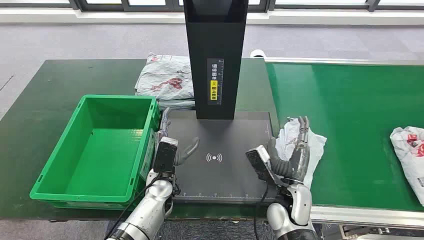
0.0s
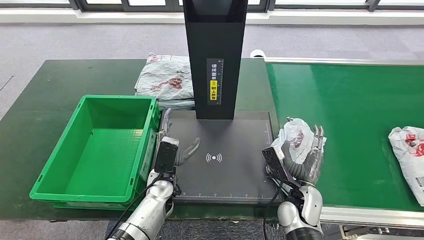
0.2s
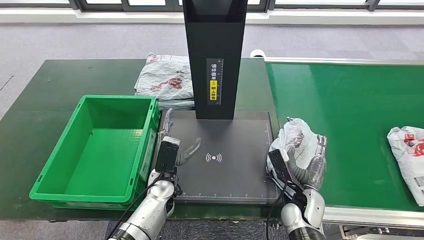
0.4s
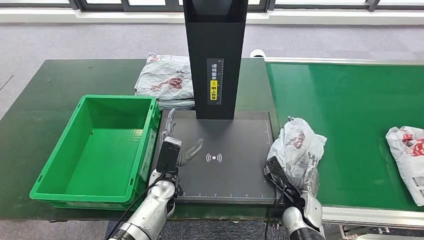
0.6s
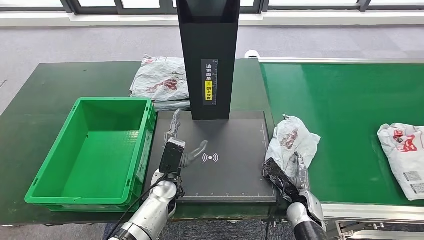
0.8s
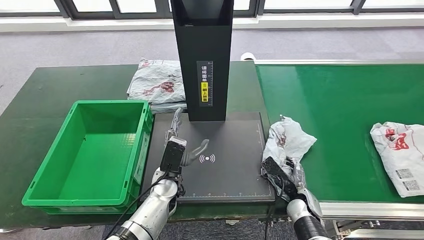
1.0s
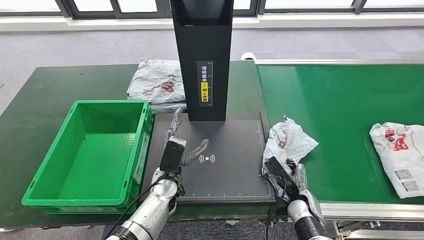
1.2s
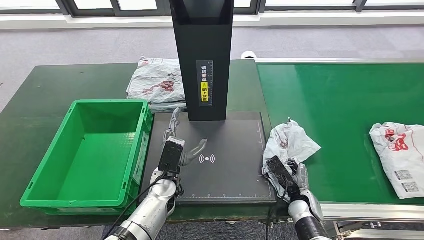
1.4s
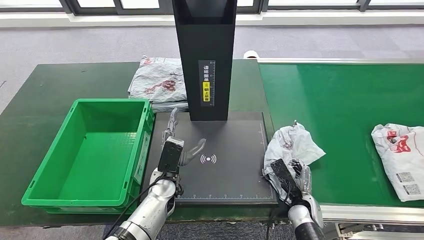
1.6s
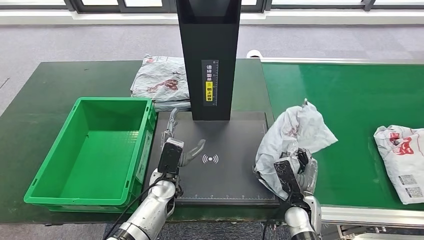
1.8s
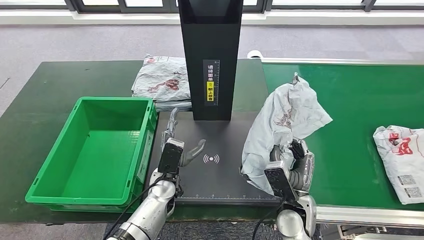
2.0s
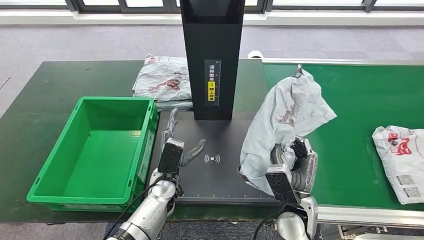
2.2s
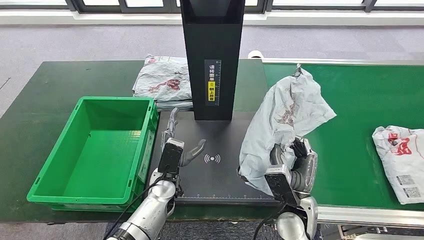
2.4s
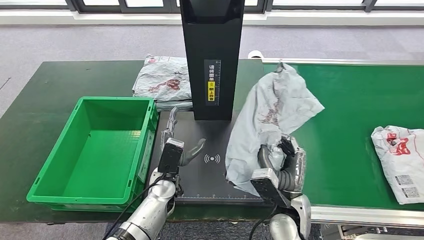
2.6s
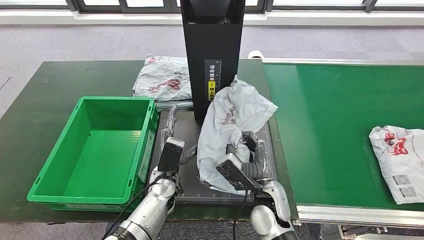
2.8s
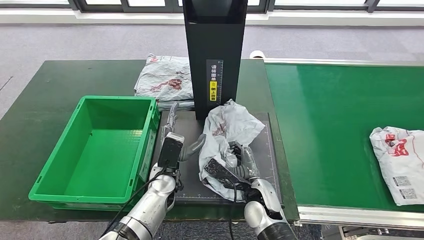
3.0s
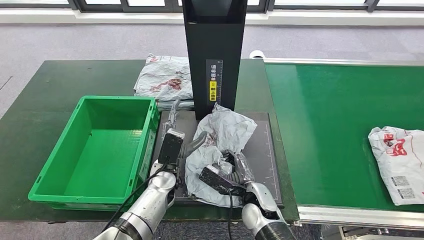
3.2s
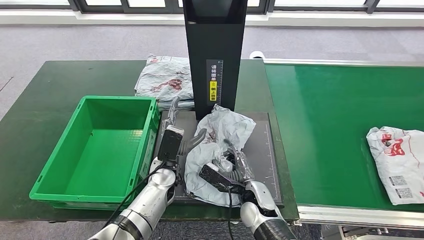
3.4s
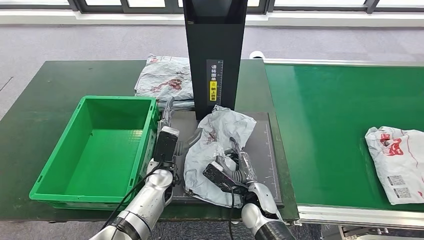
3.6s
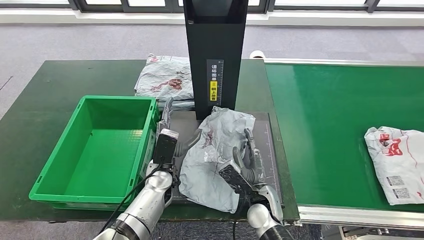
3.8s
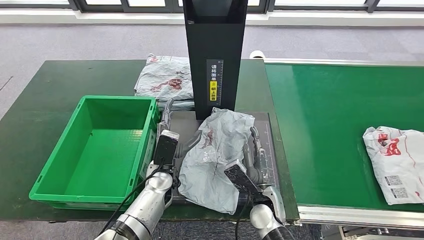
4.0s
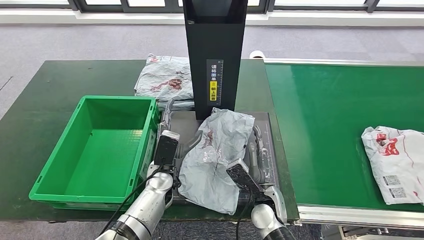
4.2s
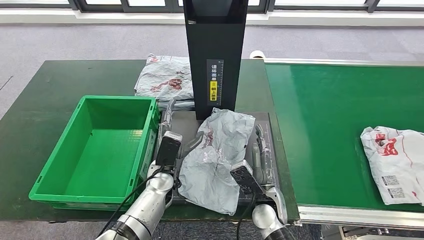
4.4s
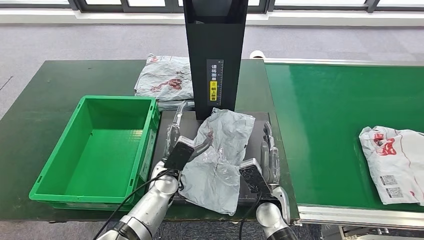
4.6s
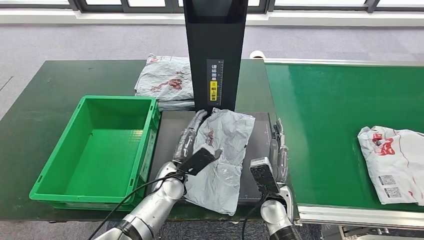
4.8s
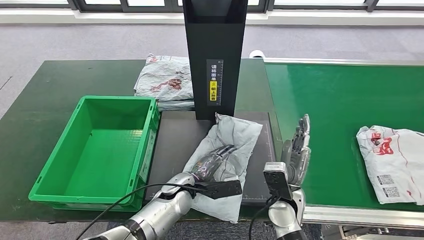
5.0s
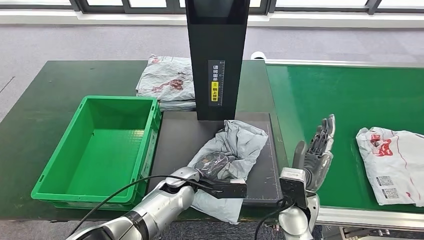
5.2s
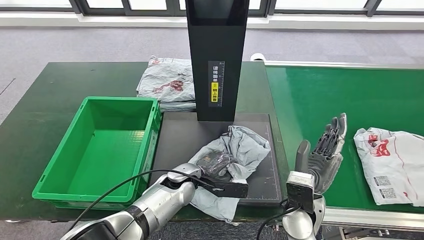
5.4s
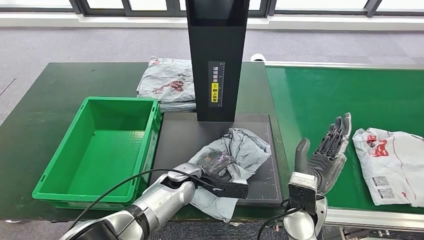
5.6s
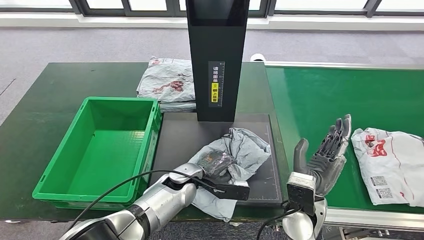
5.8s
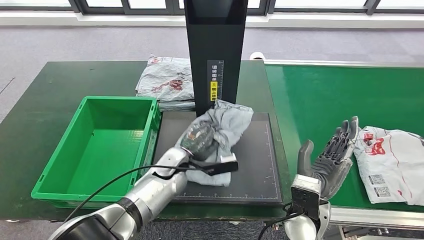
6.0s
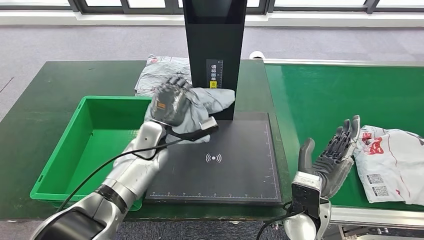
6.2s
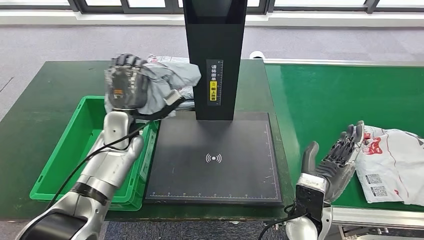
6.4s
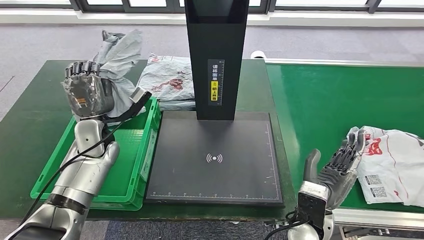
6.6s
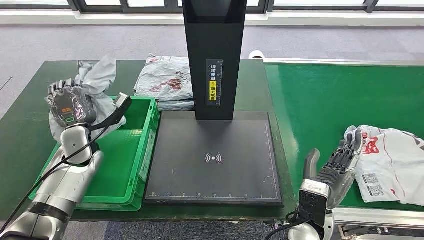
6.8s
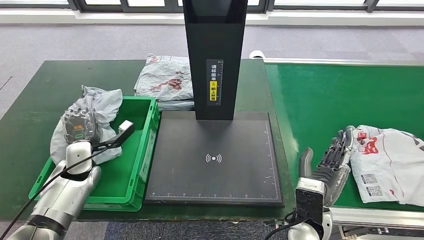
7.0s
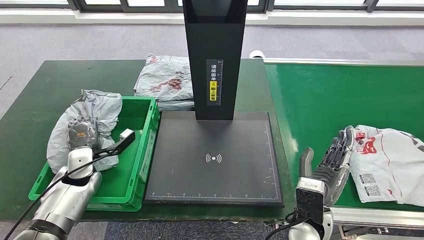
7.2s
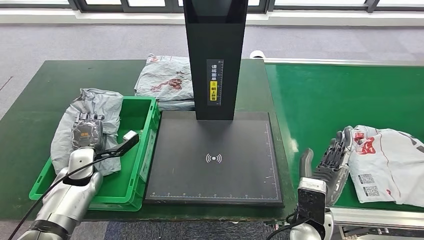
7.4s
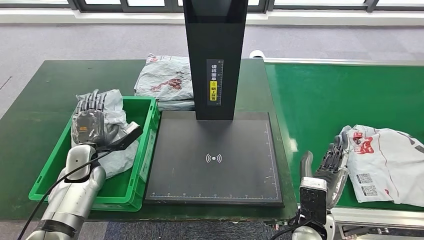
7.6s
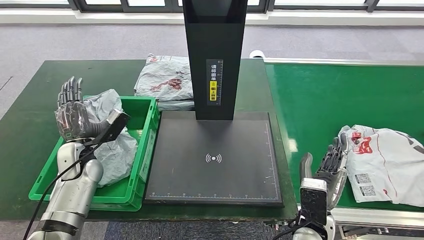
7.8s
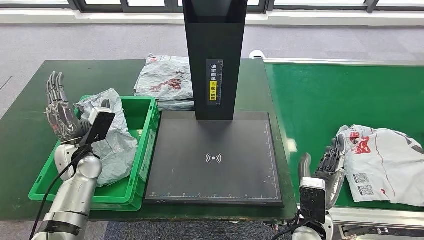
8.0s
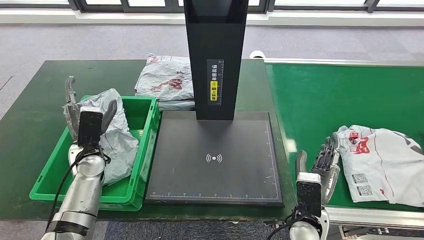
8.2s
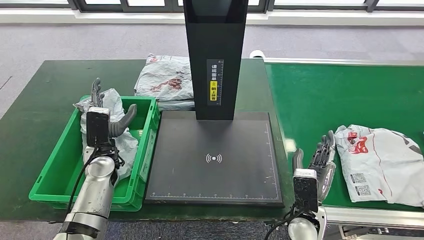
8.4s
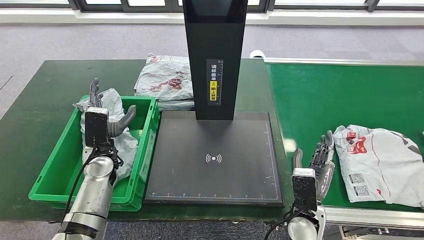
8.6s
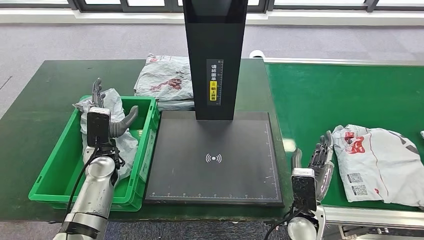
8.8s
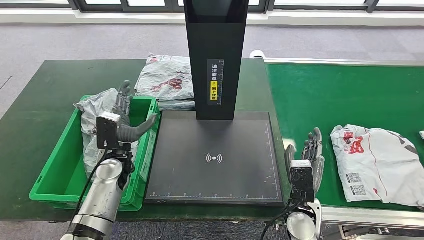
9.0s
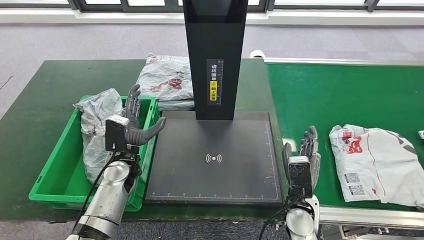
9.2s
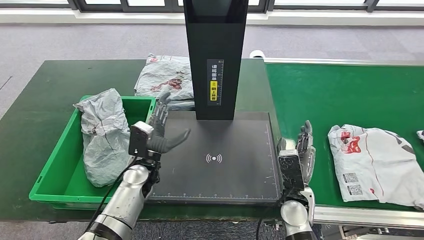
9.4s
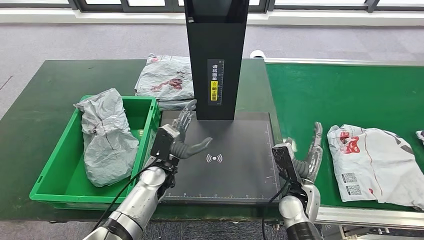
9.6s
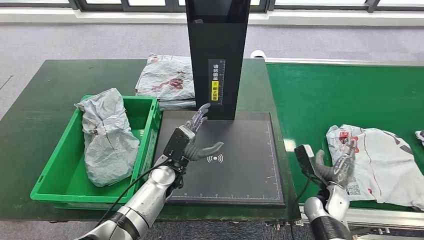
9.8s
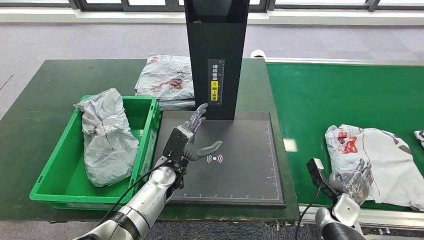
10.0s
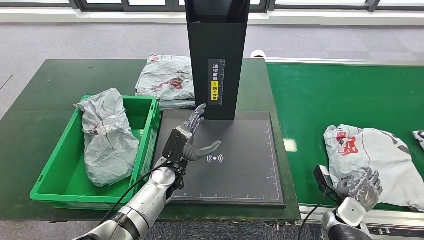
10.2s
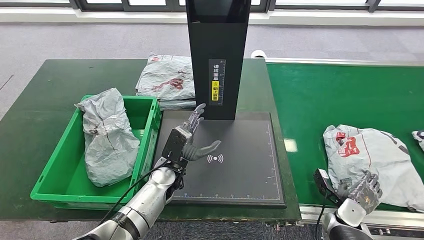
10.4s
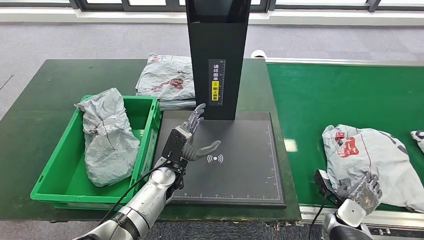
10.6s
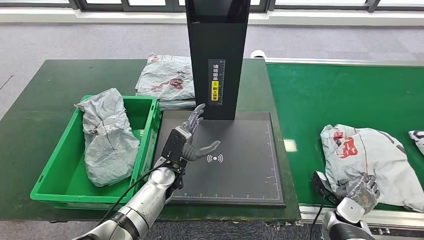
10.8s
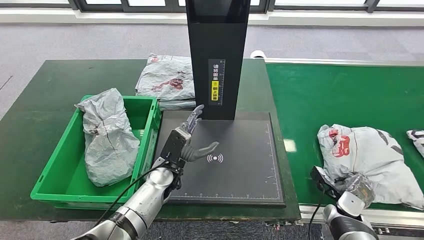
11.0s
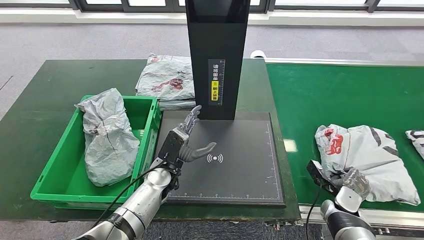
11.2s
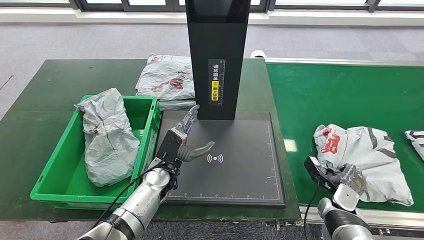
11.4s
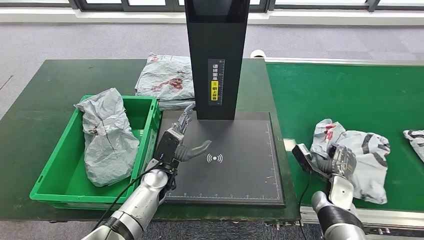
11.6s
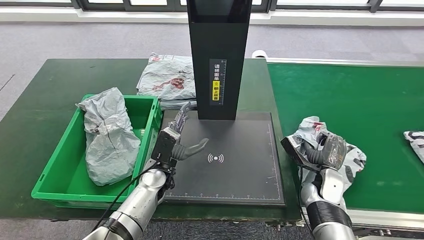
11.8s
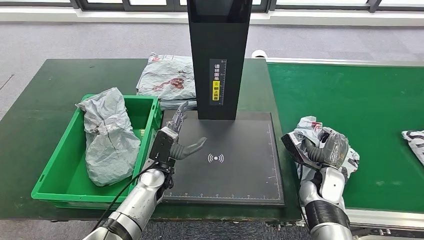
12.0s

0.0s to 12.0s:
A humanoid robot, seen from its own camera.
Step, 0.0s to 1.8s: Take the parcel off the conveyor belt.
Step, 2.0s to 4.2s: Place the parcel onto the inbound machine.
Step, 4.4s to 6.2s: Pick up the parcel from the inbound machine.
Step, 6.4s to 8.2s: Put the parcel inside the courier box.
7.6s to 9.0s: The left hand heads to the right, covering about 10 cm.
10.4s to 12.0s: The right hand travels to the left, upward and forward by about 15 cm.

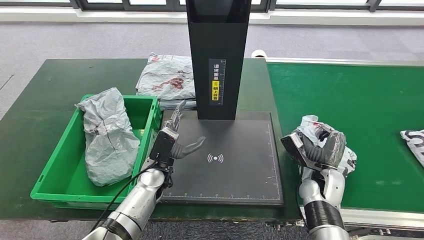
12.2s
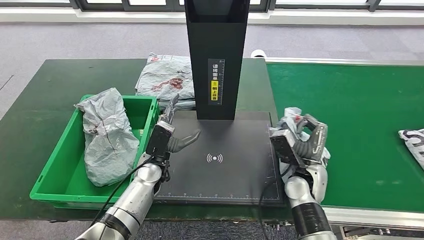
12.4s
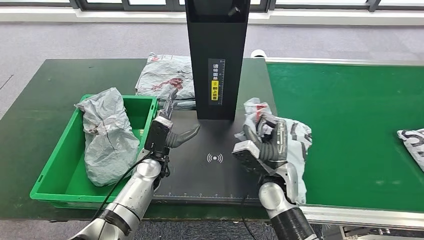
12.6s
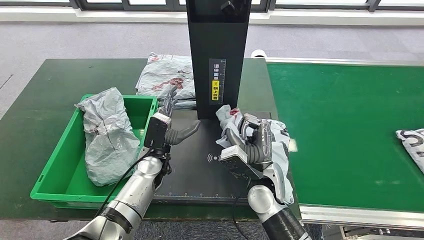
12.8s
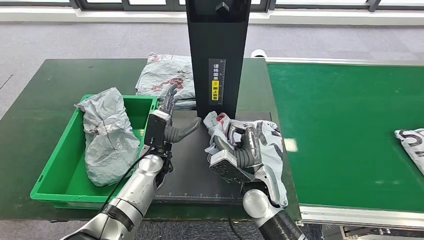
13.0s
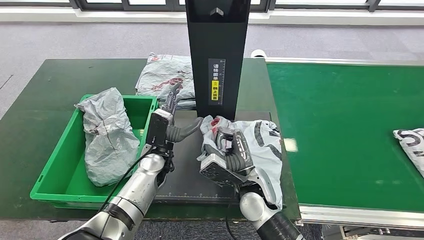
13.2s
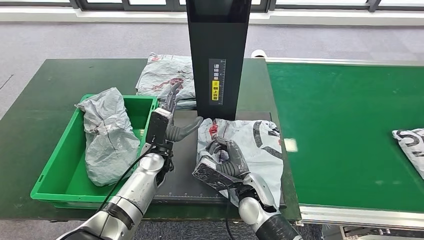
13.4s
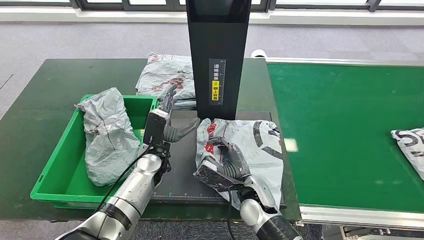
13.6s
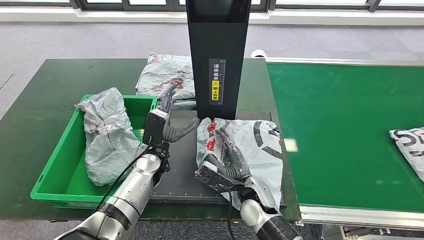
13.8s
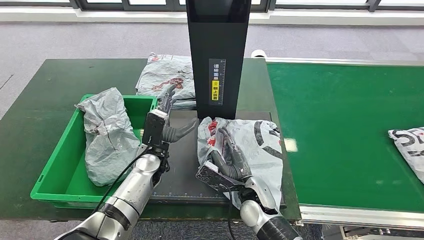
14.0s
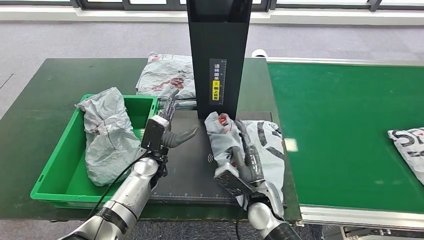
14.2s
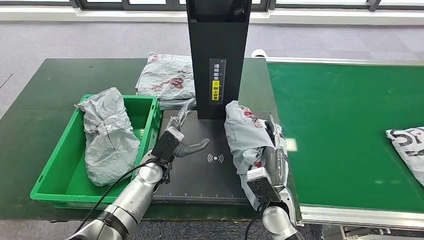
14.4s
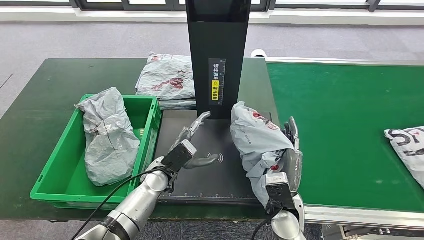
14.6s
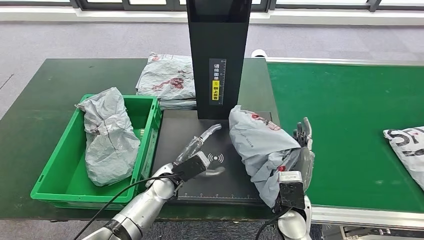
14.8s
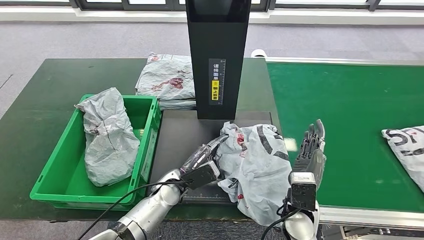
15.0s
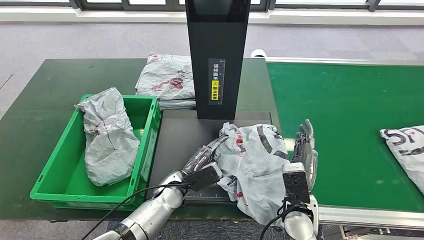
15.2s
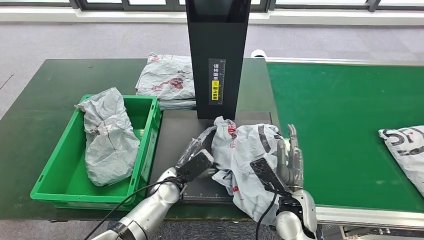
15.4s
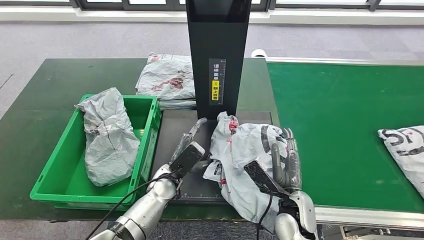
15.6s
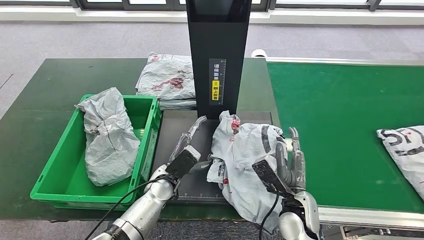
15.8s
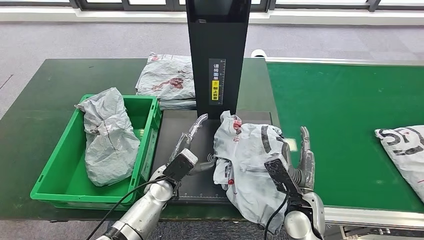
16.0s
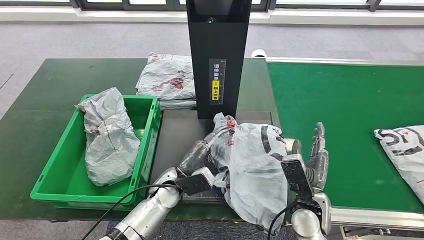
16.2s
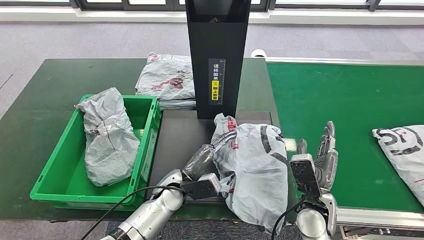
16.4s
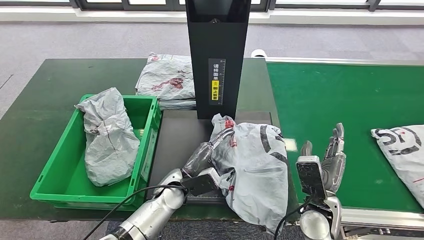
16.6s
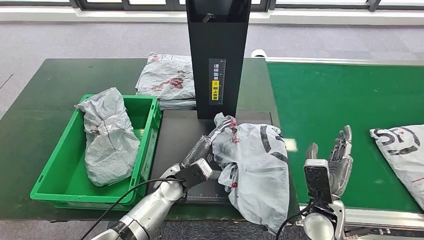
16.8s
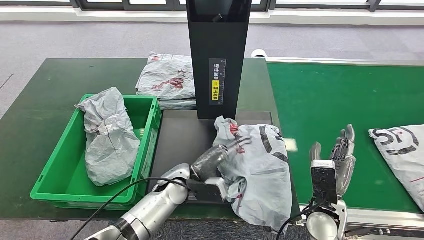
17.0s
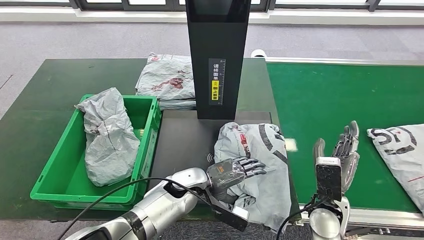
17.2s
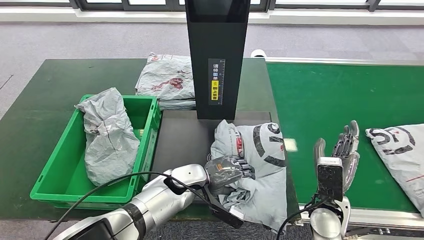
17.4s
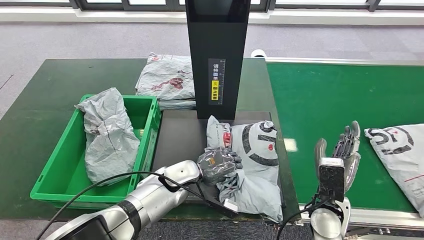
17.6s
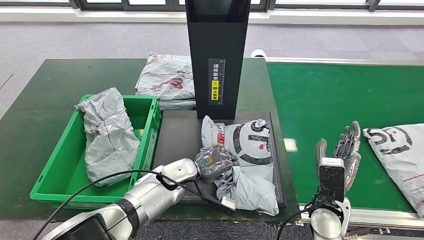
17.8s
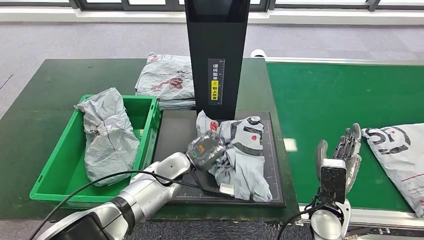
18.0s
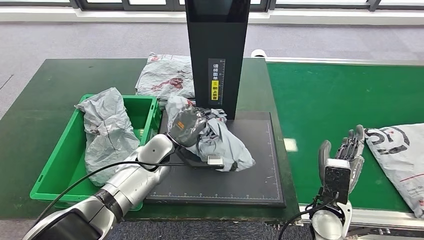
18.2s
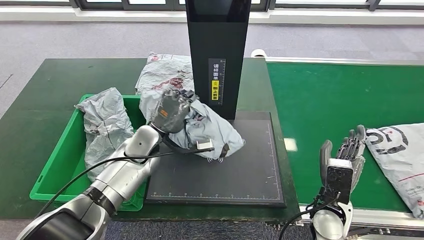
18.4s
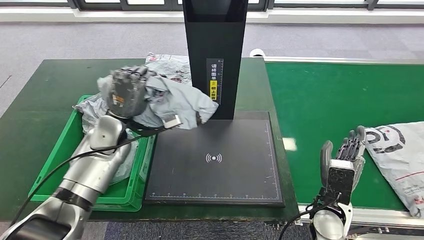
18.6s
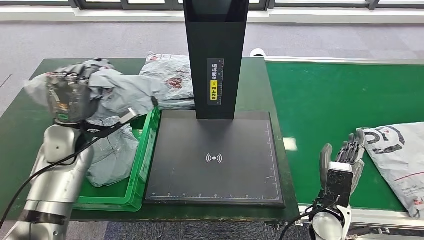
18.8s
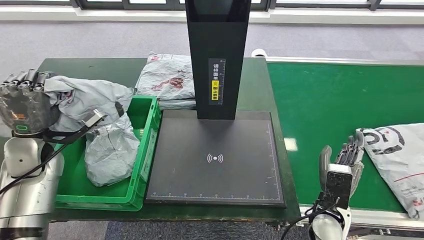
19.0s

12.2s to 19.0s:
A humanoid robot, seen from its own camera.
Step, 12.6s to 16.0s: Place the parcel onto the inbound machine.
Step, 16.2s to 18.4s: Pick up the parcel from the inbound machine.
12.2s to 13.6s: The right hand is displaced to the left by about 20 cm.
13.6s to 15.0s: The right hand is displaced to the right by some 10 cm, while the left hand is displaced backward and downward by some 10 cm.
